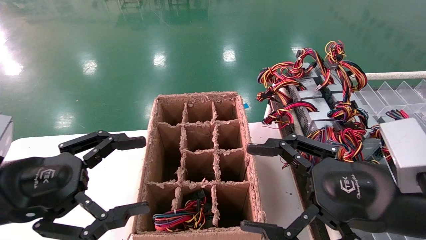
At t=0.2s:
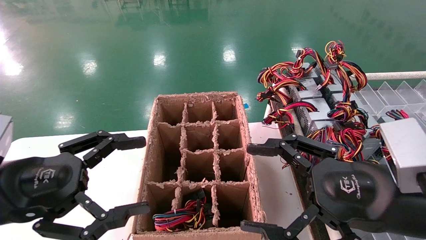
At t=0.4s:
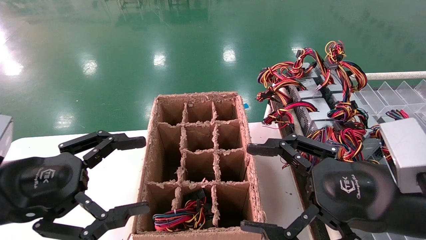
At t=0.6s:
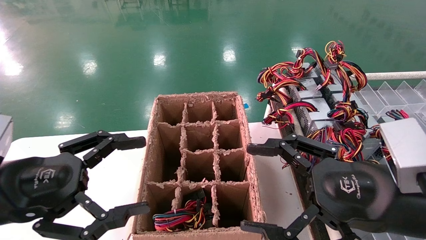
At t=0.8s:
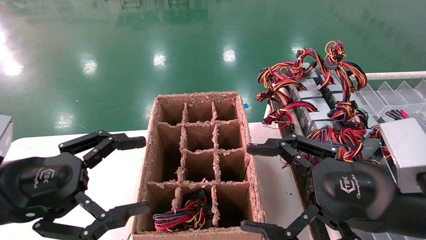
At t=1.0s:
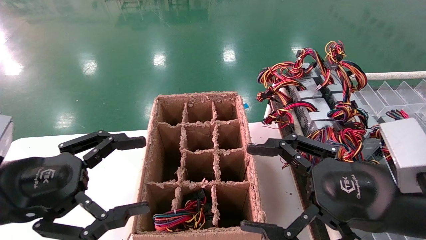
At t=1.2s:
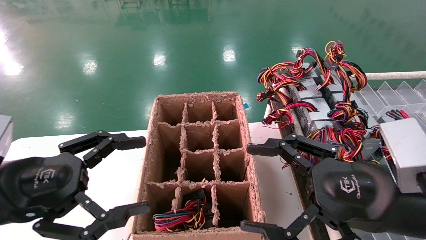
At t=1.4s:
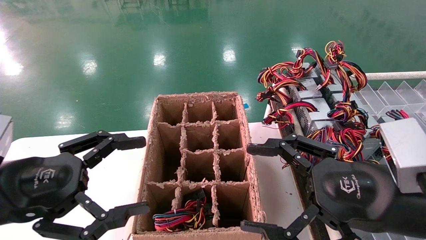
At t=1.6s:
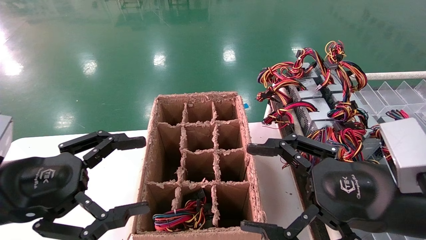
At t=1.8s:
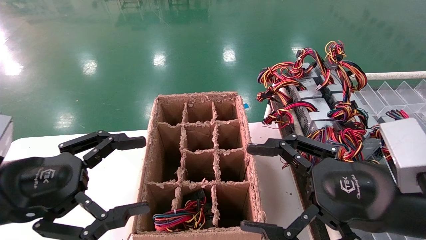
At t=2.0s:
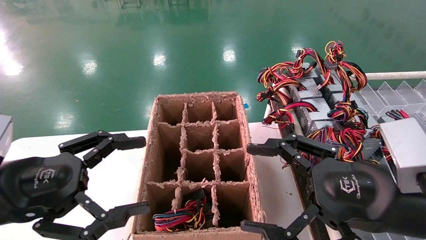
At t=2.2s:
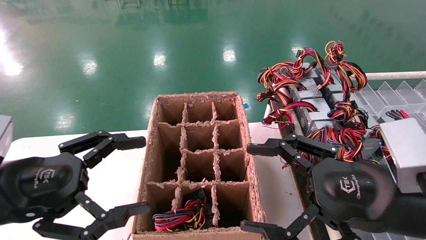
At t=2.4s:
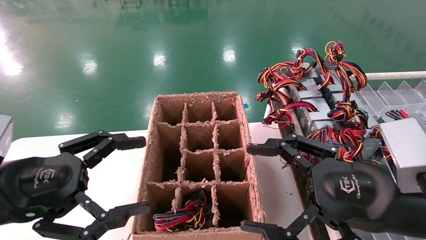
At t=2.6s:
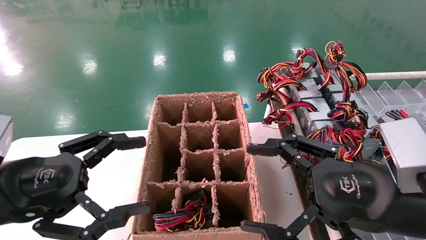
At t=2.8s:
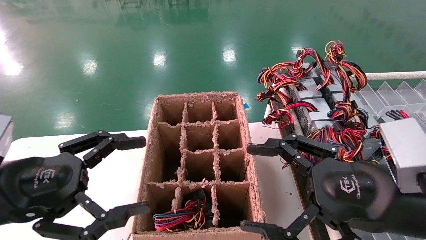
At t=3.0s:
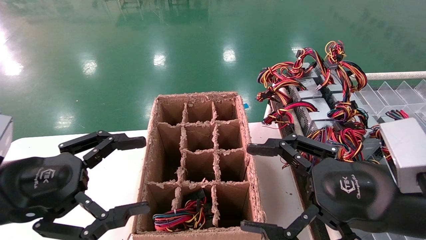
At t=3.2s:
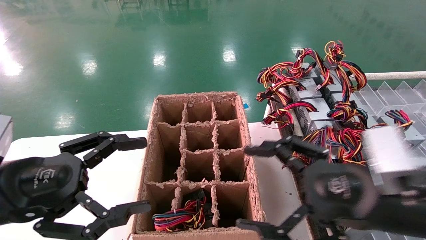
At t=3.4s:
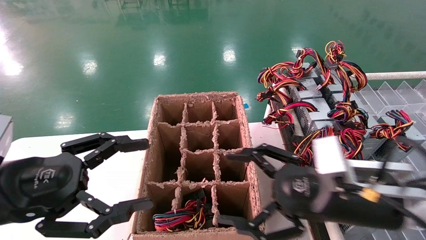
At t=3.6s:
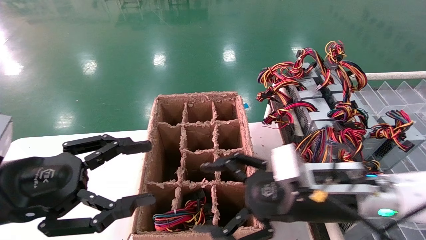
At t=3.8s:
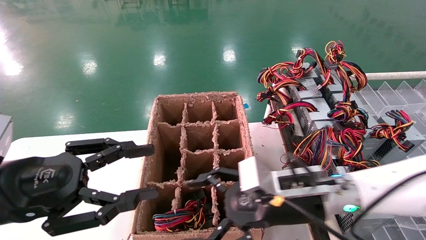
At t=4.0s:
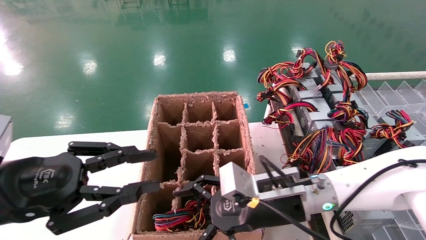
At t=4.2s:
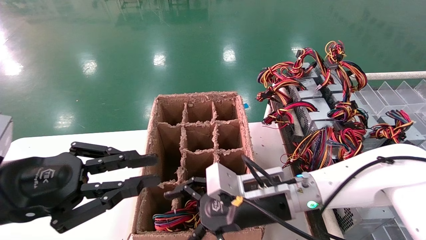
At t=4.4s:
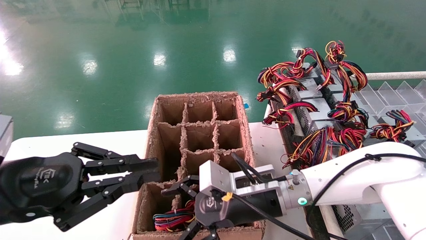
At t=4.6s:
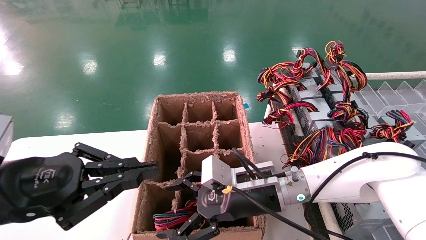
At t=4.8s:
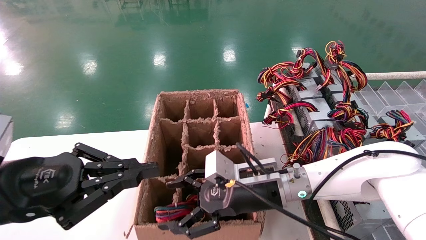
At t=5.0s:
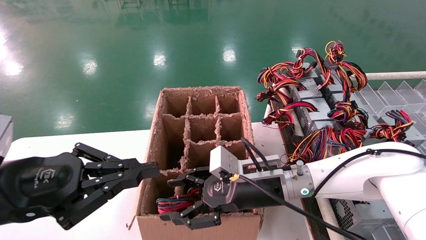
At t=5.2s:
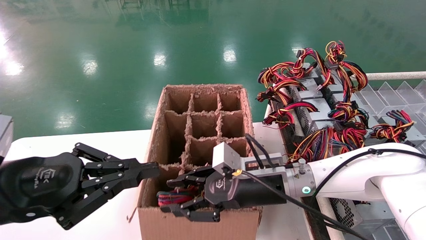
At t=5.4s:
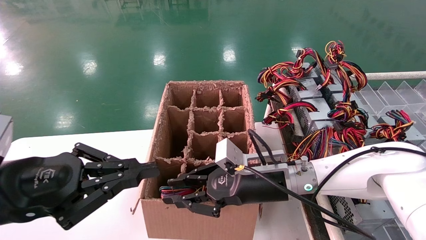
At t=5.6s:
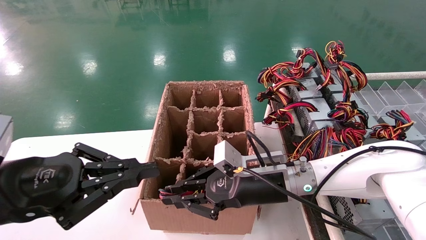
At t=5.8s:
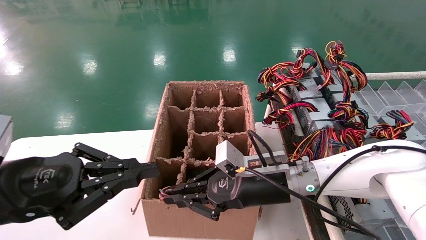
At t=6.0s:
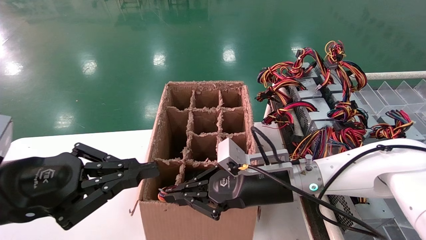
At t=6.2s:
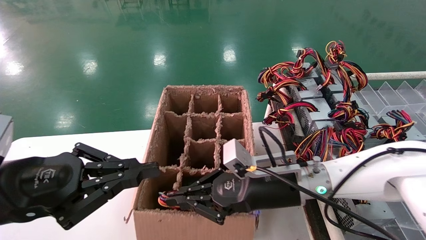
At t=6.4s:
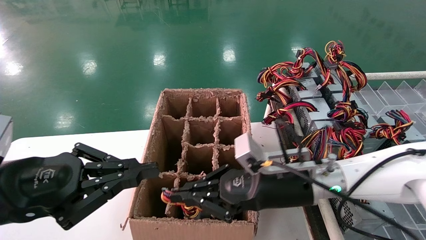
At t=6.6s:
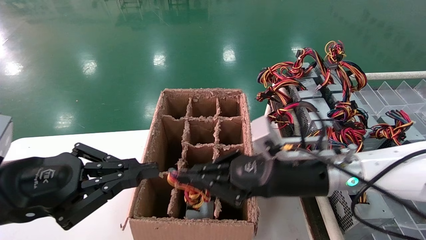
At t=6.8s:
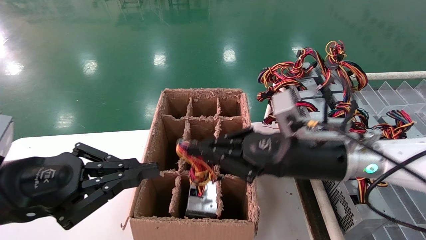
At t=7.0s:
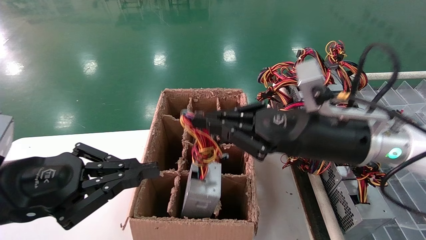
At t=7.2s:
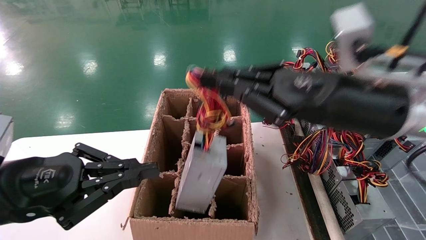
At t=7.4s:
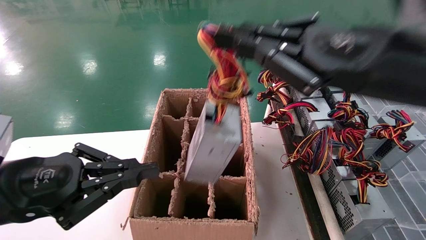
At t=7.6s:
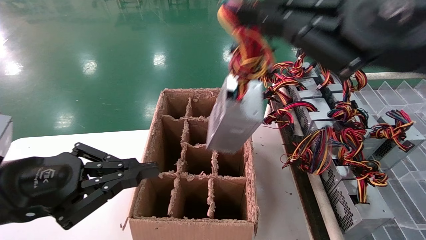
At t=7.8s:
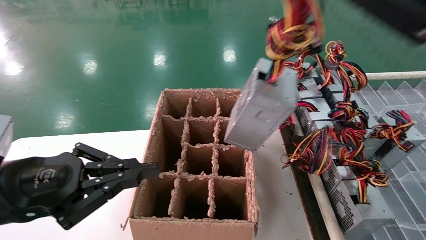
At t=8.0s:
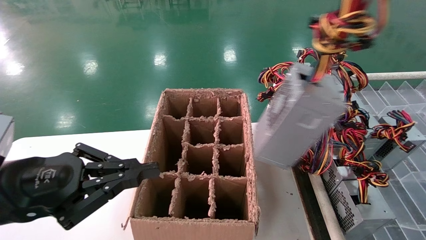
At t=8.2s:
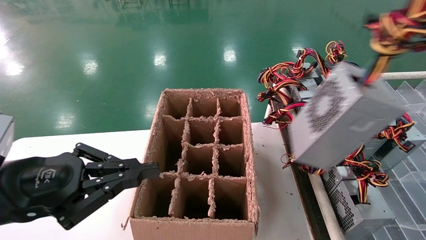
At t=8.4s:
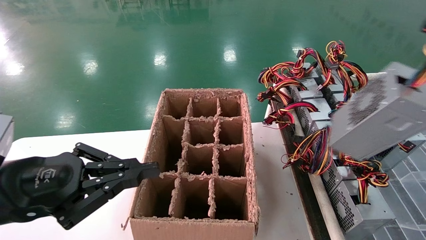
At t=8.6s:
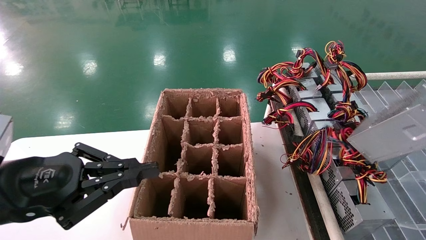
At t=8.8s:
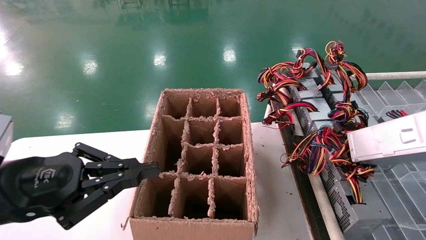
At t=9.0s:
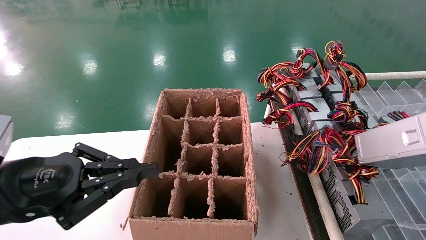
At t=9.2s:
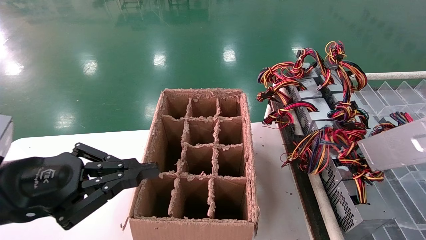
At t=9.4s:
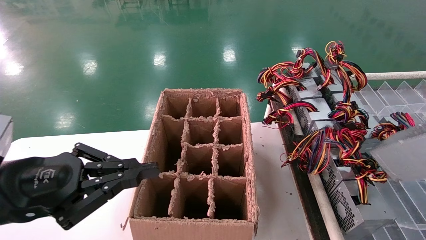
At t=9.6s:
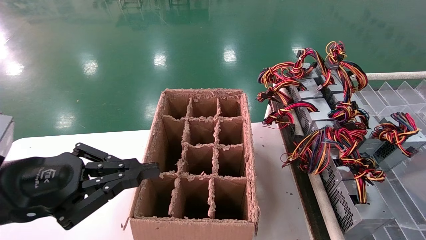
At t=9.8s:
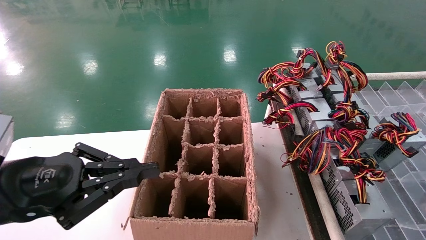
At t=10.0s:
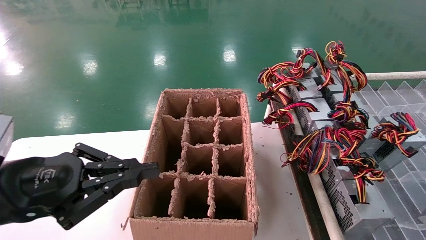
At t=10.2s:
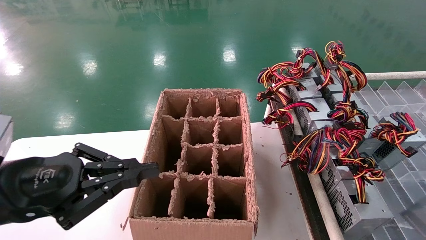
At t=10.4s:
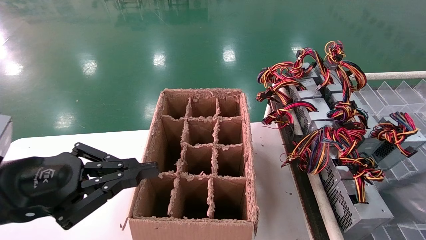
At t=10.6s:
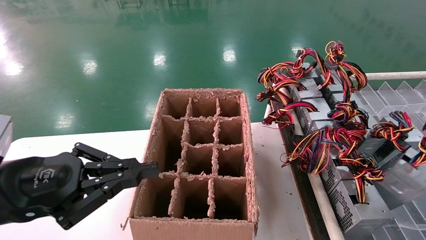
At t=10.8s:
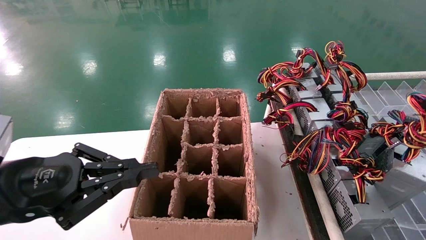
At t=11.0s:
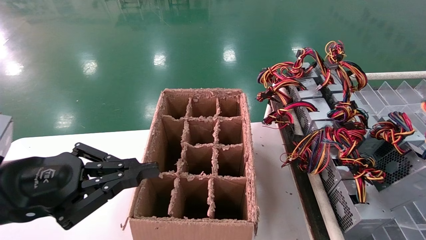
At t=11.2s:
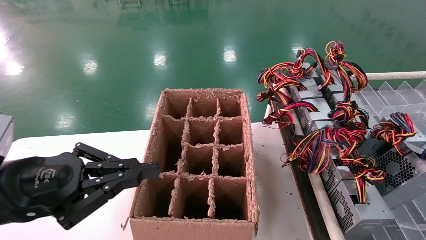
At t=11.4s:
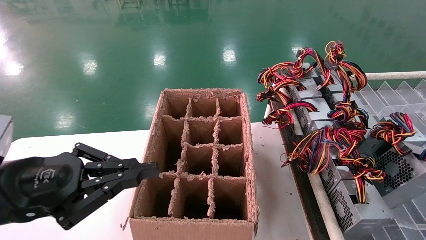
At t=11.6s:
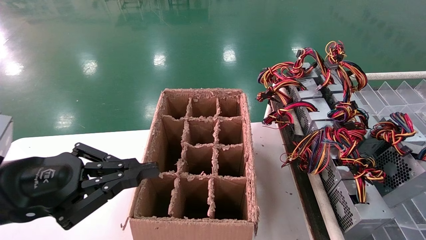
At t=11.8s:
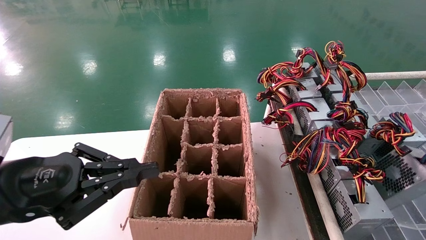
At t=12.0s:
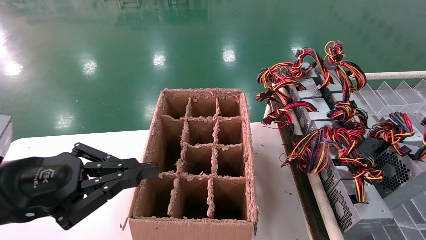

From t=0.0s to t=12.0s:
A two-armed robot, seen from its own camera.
Step, from t=3.4s to t=6.2s: Grab the main unit power supply from the containment box.
From t=0.0s to t=3.0s: Neither gripper changes place.
From t=3.0s to t=4.4s: The right gripper shifts approximately 20 cm to the left, forward and downward, while the left gripper closes its fingers.
From t=4.4s to t=6.0s: The right gripper closes up.
From t=6.0s to t=7.6s: The right gripper goes approximately 30 cm upward, backward and to the right.
From t=7.6s to t=9.0s: The right gripper travels to the right and backward by roughly 25 cm.
From t=9.0s to t=10.4s: The right gripper travels downward by some 10 cm.
From t=10.4s to t=12.0s: The right gripper travels forward by some 10 cm.

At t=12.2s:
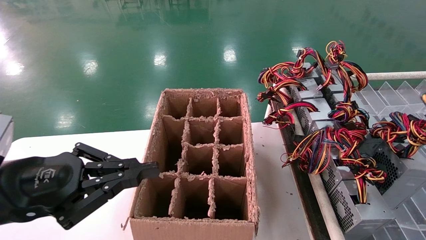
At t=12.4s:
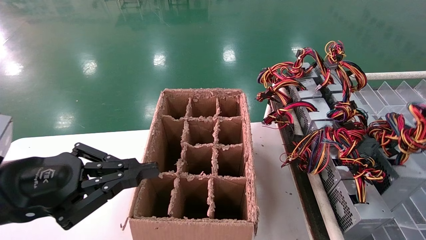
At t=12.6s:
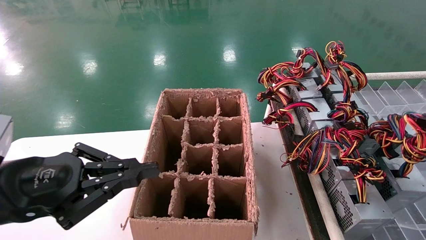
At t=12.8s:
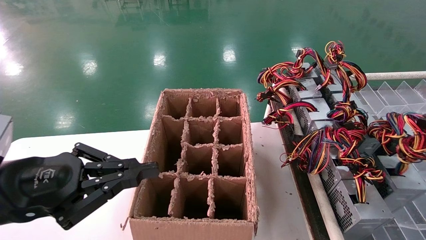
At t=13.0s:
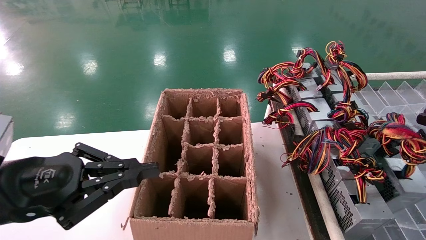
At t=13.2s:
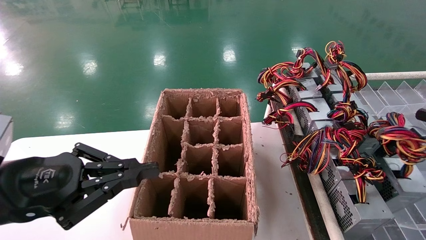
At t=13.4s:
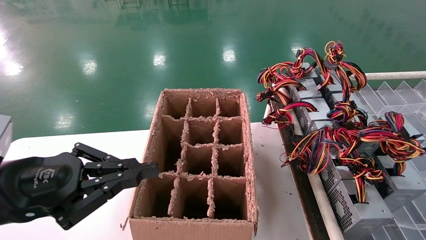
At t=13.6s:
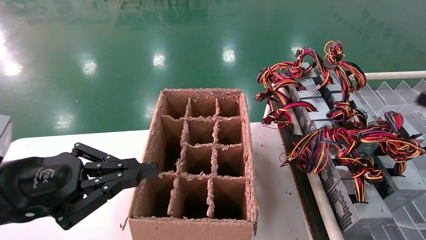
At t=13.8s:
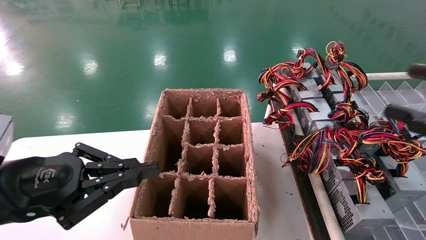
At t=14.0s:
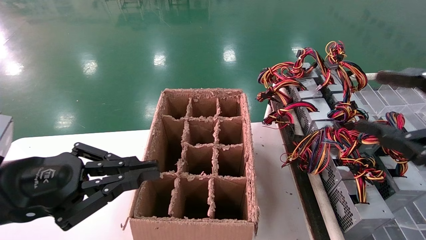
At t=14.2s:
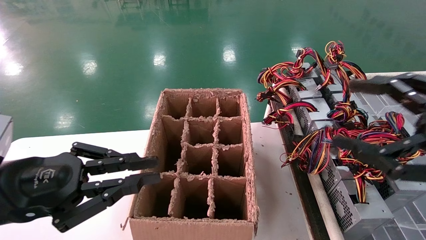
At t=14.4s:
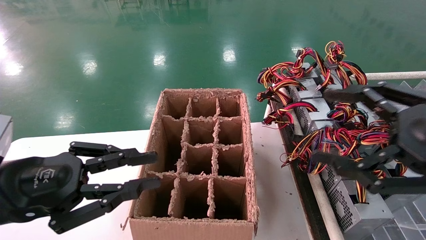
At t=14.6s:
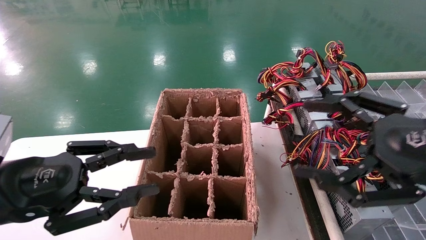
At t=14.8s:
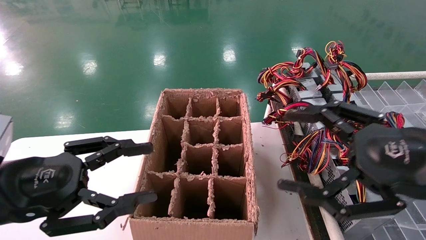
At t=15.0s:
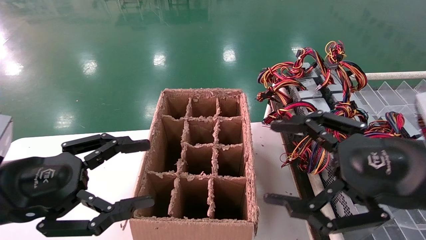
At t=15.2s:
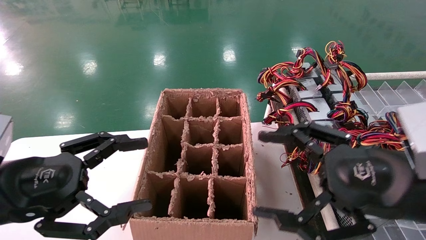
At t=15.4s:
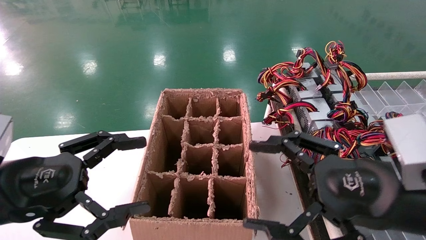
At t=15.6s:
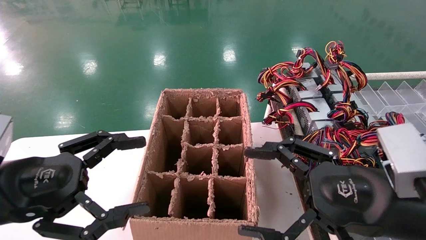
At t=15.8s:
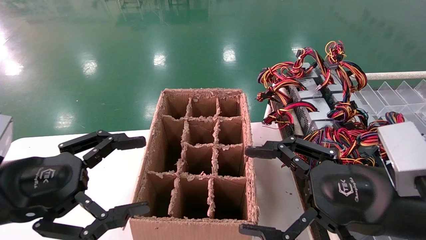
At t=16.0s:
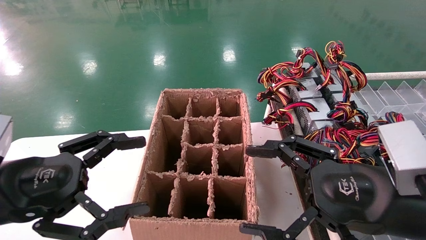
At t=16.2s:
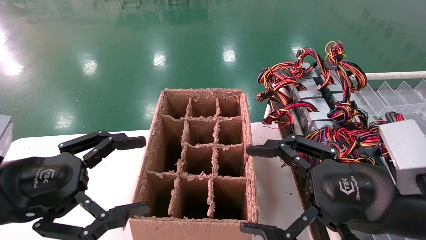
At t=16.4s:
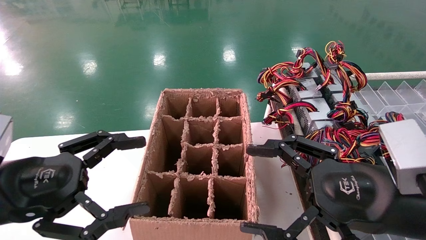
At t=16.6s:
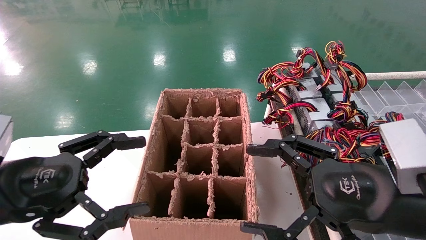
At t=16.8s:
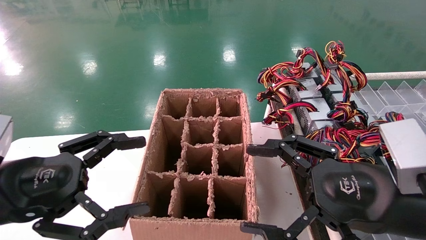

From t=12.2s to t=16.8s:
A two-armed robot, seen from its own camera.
From t=12.2s to t=13.8s: The right gripper travels to the left by about 10 cm, and opens up.
From t=13.8s to t=15.2s: The right gripper travels to the left and forward by some 15 cm, and opens, while the left gripper opens.
From t=15.2s to t=16.8s: The grippers stay close to where they were, moving slightly.
